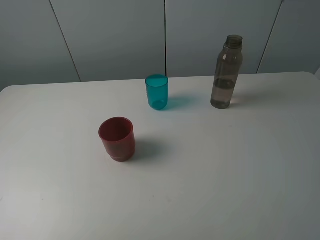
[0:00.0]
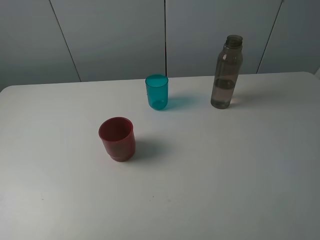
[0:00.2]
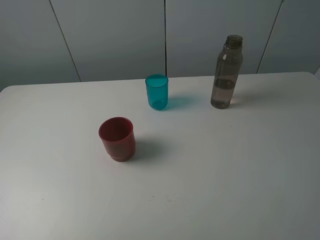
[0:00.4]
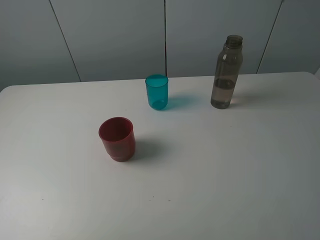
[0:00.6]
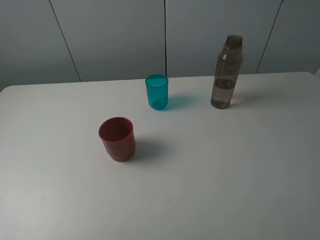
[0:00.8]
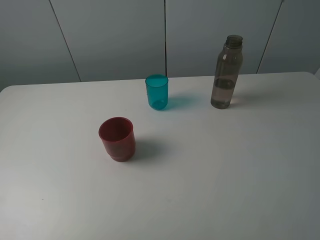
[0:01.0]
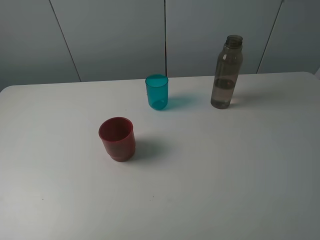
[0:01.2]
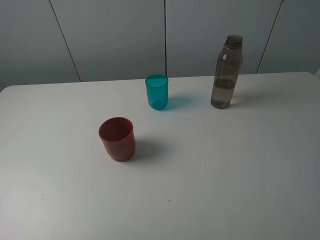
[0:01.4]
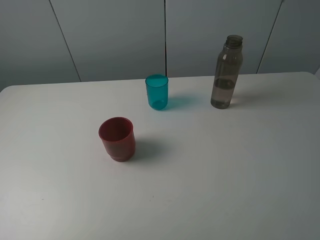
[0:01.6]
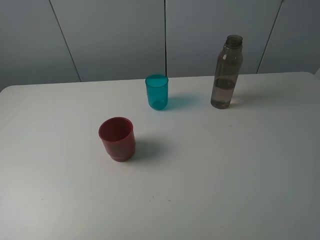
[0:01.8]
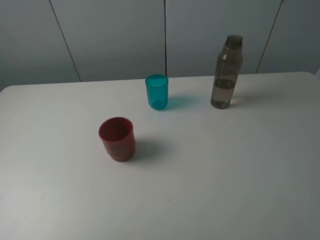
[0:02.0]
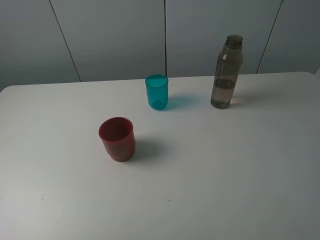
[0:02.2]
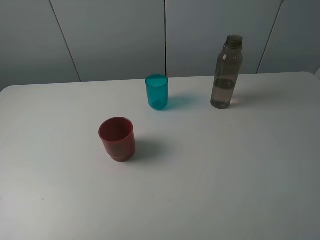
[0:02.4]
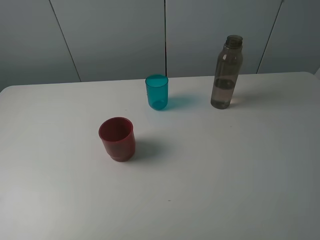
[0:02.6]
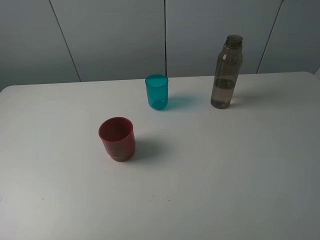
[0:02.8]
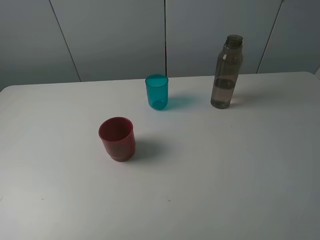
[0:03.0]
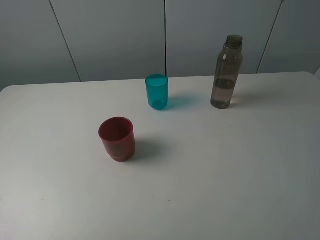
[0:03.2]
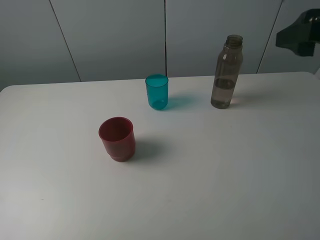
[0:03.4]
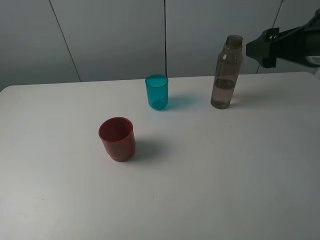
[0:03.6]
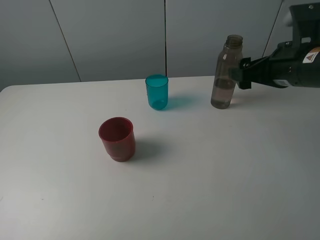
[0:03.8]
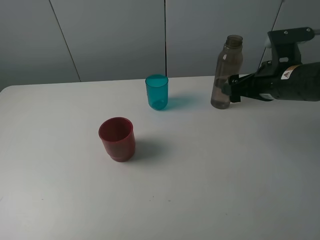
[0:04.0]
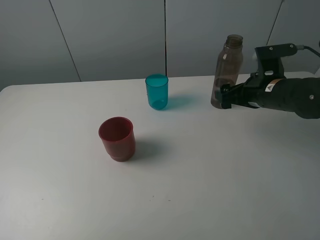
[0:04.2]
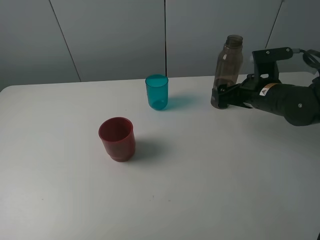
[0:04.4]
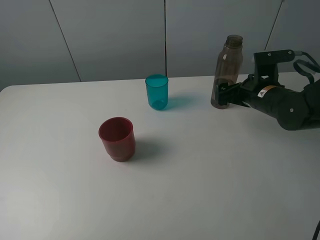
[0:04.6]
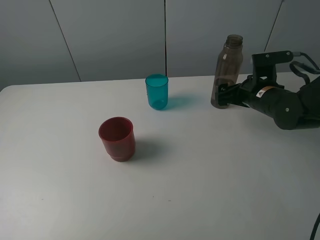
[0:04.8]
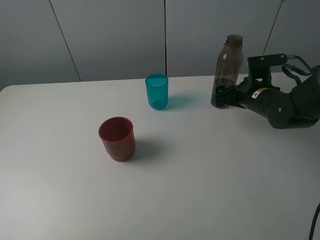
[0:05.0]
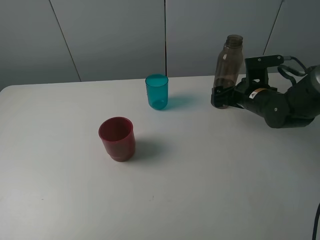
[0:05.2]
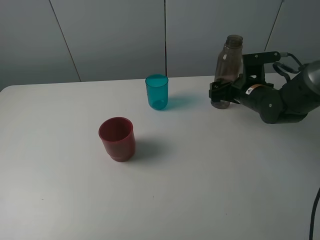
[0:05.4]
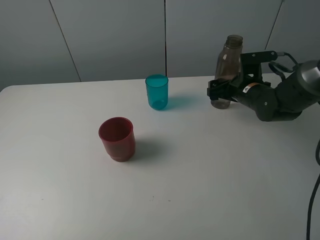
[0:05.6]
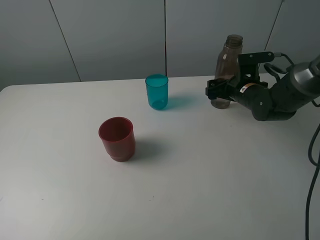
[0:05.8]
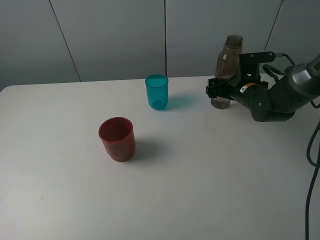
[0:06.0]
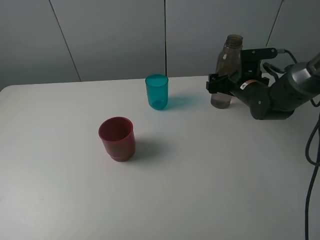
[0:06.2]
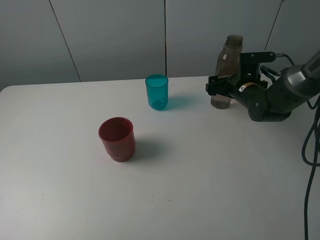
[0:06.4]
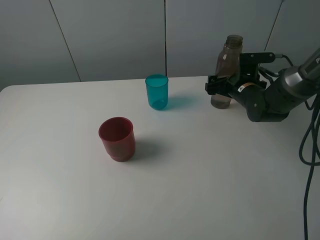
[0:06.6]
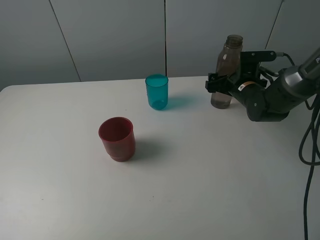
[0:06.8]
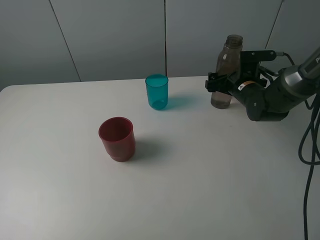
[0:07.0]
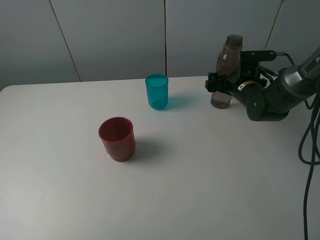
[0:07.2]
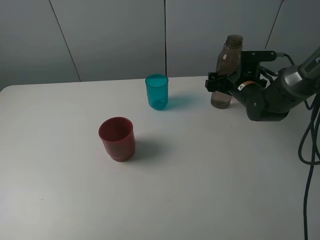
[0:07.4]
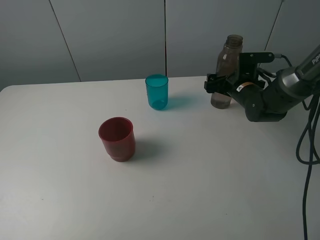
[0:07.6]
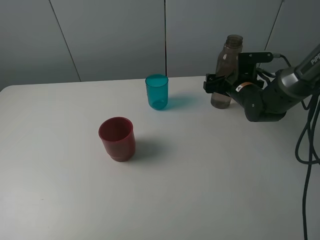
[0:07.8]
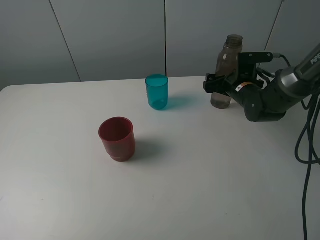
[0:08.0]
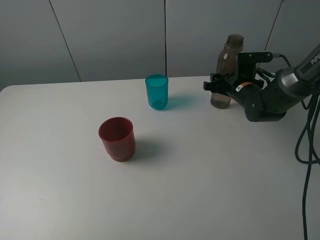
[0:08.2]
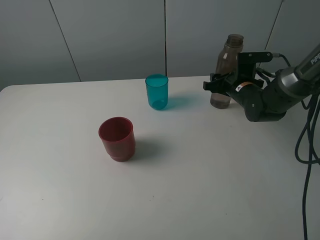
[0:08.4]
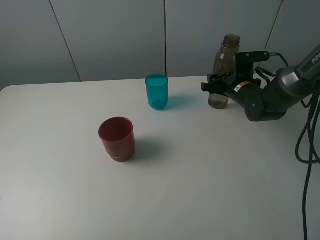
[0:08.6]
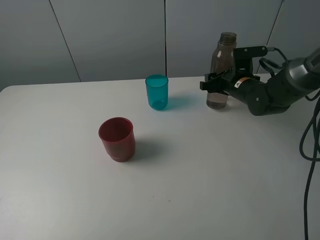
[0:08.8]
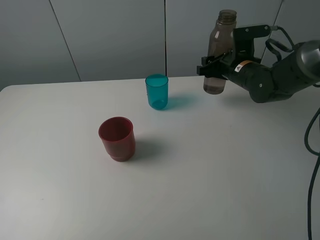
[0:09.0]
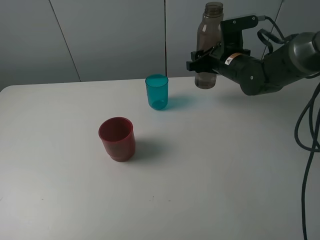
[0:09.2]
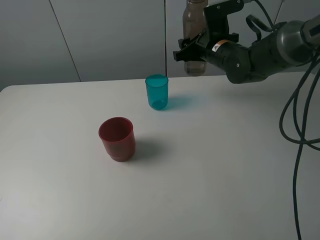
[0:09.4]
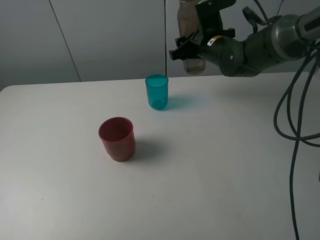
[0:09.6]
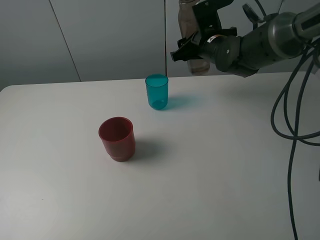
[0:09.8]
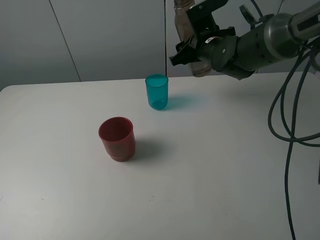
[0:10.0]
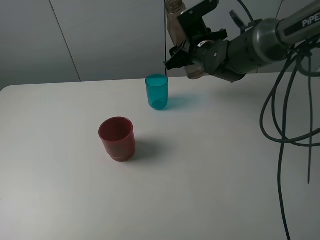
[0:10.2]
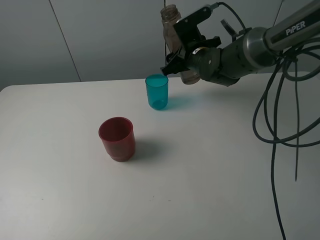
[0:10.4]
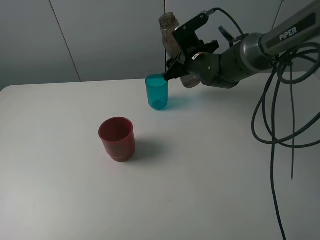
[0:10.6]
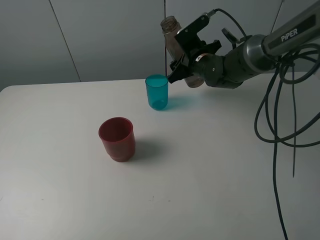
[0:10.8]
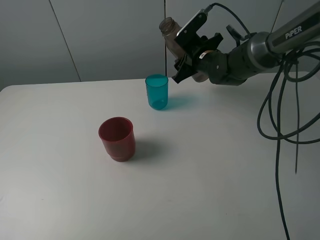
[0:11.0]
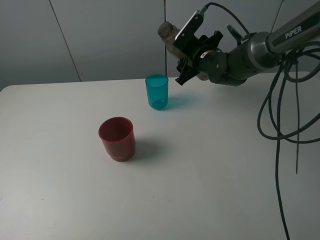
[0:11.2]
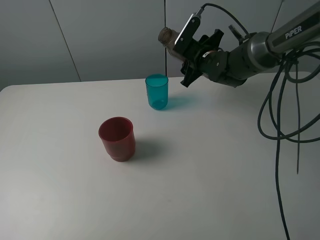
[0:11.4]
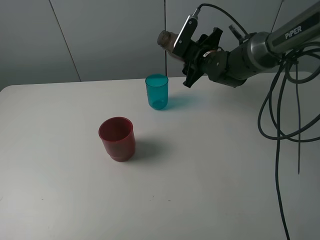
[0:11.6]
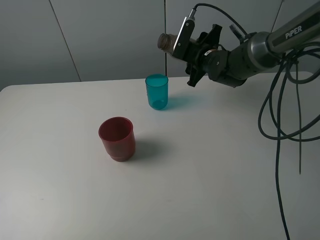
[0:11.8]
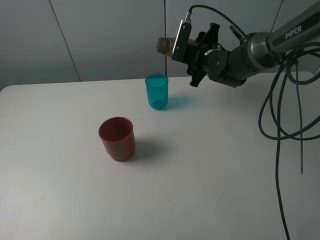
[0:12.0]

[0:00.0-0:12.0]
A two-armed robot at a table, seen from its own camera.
Task of the whole recording: pick up the bottle and pour water into the cup, then pick up the cup containing water and pour it into another cup.
Step, 0:00.0 to 0:08.2: Grasp the brown bottle with the right gripper.
0:00.0 to 0:01.6: Neither gripper changes place.
0:03.0 to 0:04.4: The right gripper goes about 30 cm downward and forward.
0:04.4 to 0:06.0: The right gripper travels forward by approximately 5 cm.
0:06.0 to 0:07.6: The grippers make only small movements.
0:07.6 to 0:09.0: The right gripper shifts about 5 cm upward, and closes up.
0:09.0 to 0:10.4: The right gripper goes roughly 10 cm to the left.

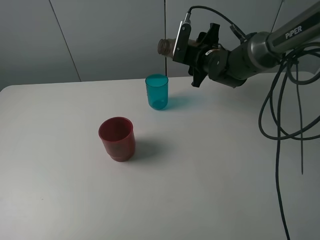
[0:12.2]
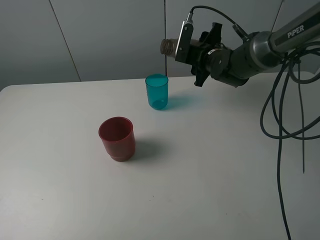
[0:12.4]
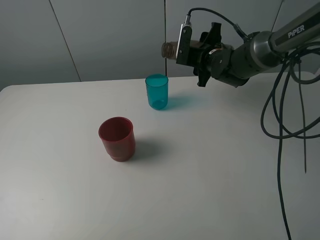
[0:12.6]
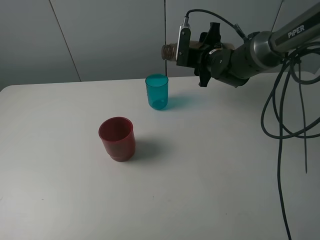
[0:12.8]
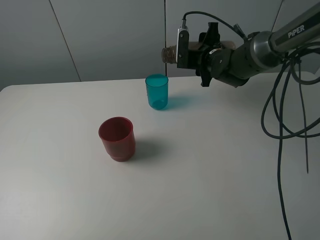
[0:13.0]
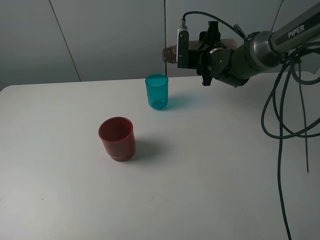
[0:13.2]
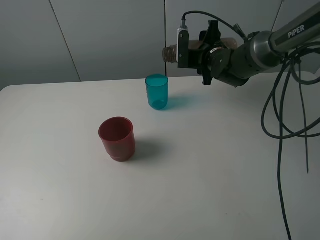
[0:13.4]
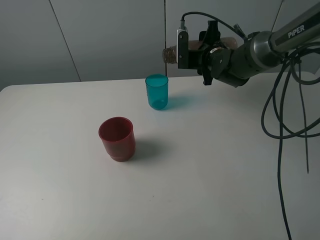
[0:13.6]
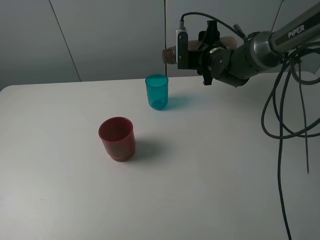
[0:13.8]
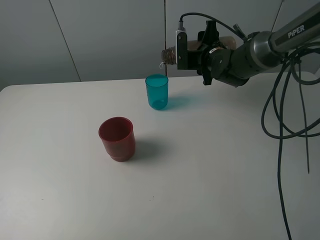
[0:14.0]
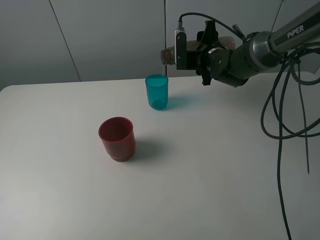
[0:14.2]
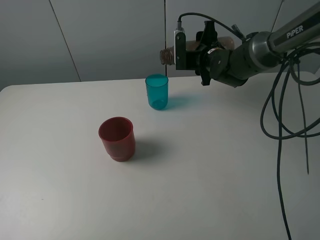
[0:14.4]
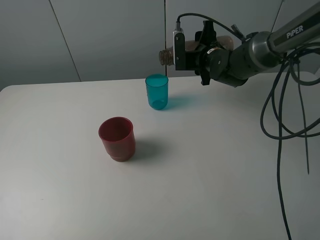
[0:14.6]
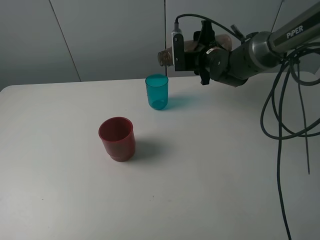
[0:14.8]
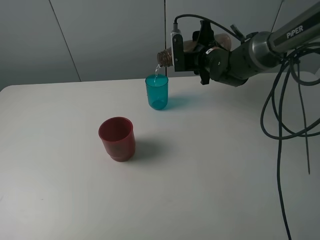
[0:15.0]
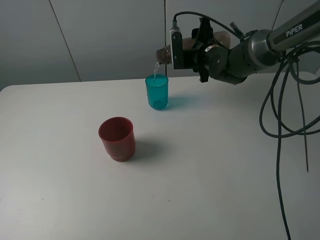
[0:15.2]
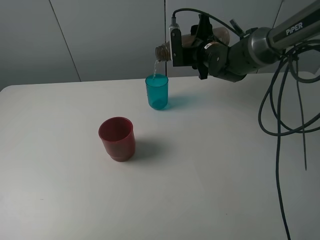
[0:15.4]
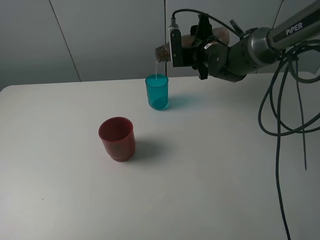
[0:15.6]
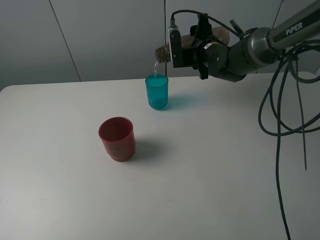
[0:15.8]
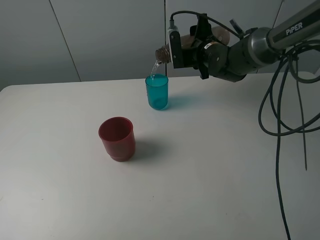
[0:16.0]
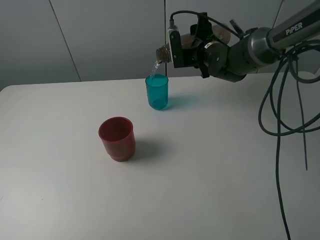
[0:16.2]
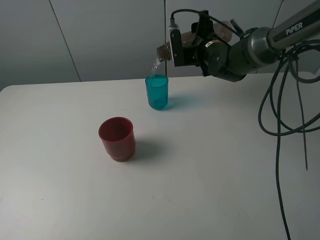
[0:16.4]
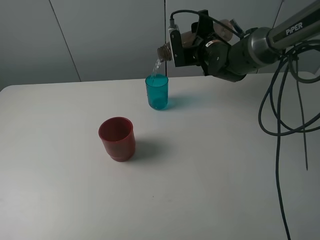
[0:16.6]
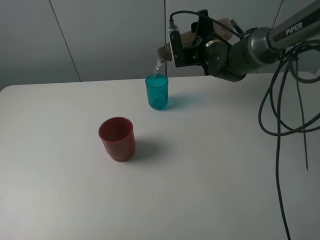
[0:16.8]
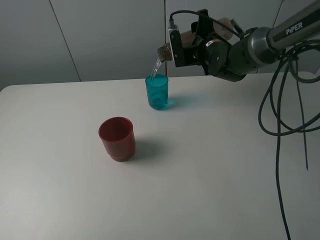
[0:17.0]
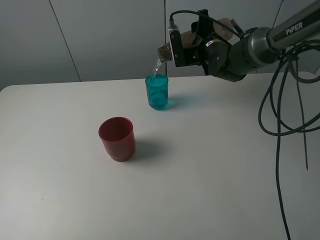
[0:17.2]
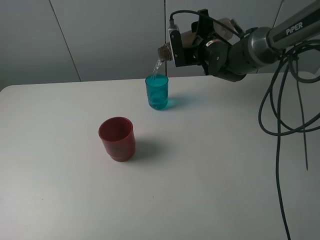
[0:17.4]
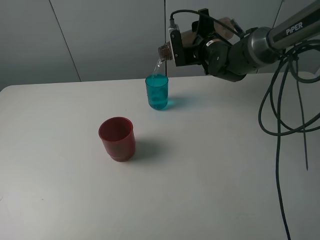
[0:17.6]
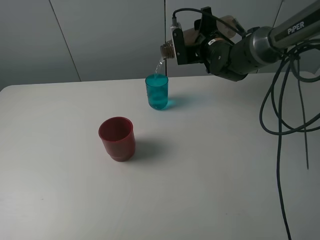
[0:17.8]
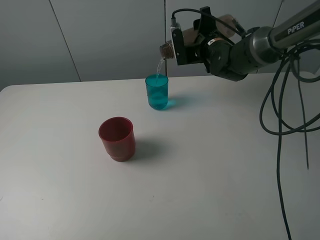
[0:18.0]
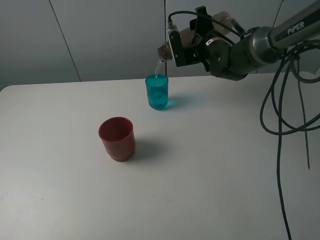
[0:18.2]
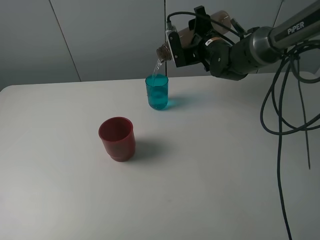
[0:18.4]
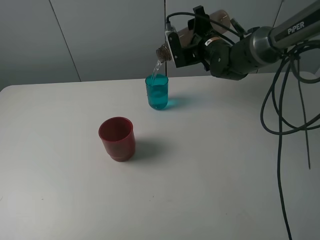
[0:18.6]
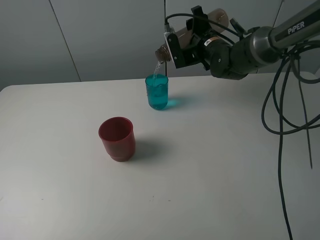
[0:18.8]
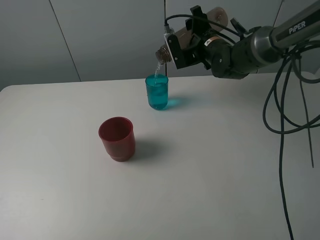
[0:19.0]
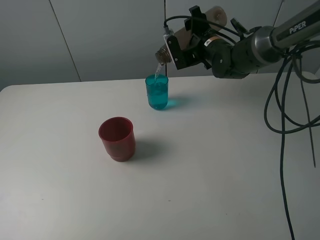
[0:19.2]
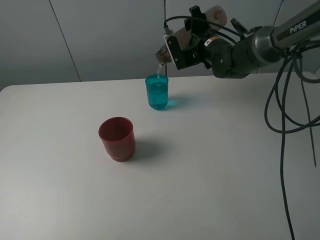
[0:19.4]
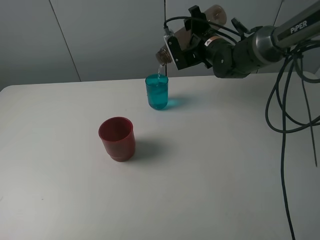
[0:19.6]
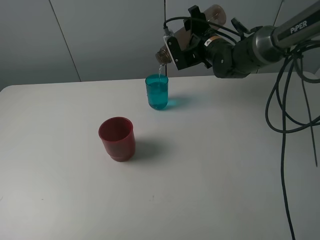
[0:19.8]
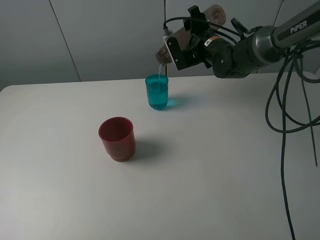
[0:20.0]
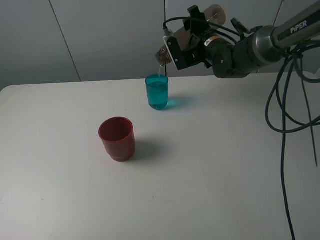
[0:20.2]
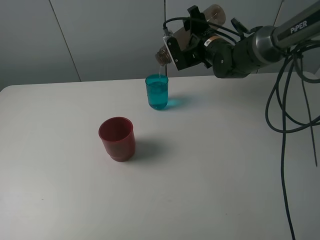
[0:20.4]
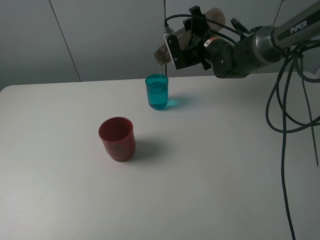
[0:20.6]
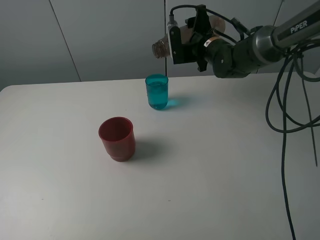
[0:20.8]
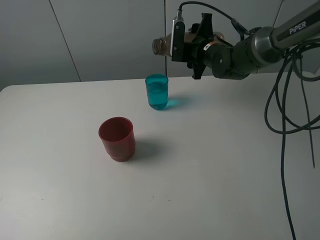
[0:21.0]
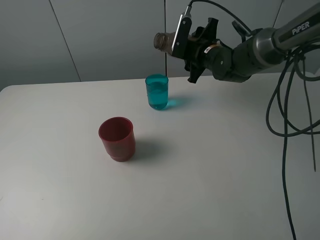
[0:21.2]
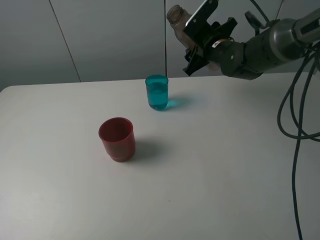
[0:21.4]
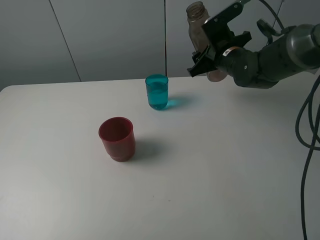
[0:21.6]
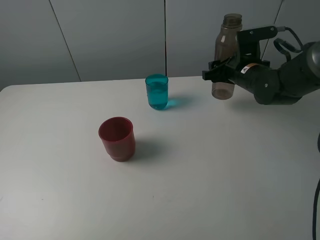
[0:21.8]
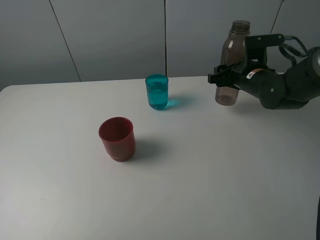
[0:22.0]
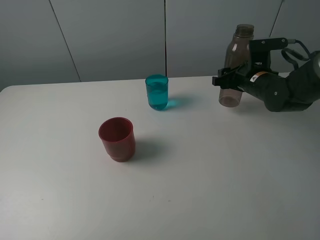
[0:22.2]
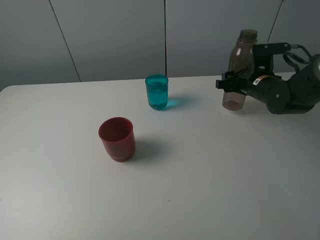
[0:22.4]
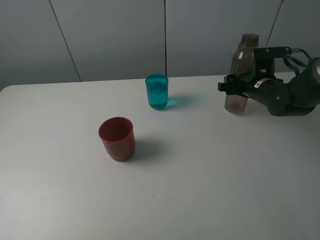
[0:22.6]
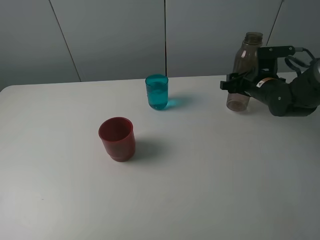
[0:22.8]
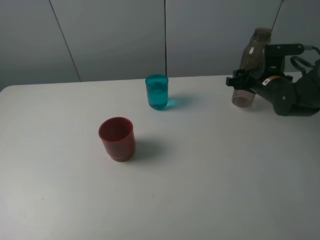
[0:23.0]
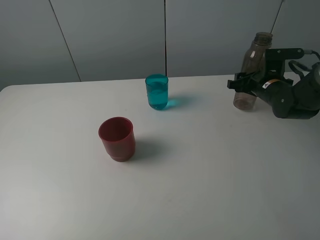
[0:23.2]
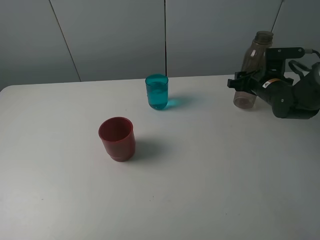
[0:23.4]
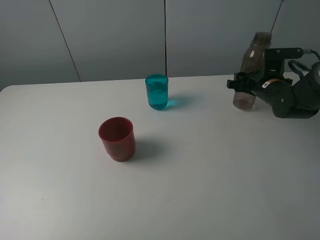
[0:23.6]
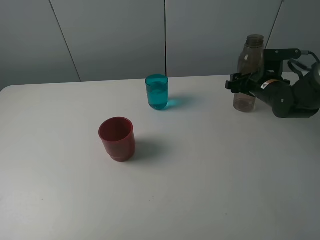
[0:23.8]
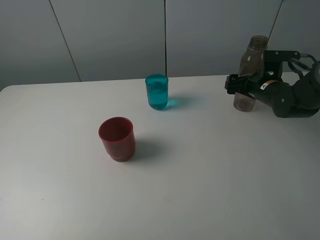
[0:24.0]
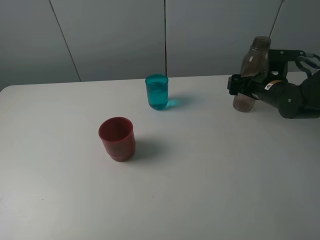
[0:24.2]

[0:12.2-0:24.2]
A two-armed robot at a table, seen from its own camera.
Task of the whole recording: pick up the bottle and pour water into the cup, then pick up the cup containing water and pour it into another cup.
Step, 0:12.2 to 0:20.8: Pour water from brown bottle to blue cup with the right gripper.
0:12.2 to 0:13.8: The grippers make only small movements.
0:13.8 to 0:18.2: The grippers move only a little.
0:18.2 to 0:19.8: There are only small adjustments of the grippers.
0:21.2 to 0:22.6: The right gripper shifts approximately 15 cm to the right, backward and downward.
0:22.6 to 0:24.2: The right gripper opens up.
